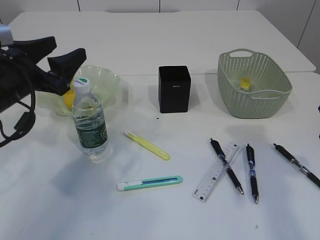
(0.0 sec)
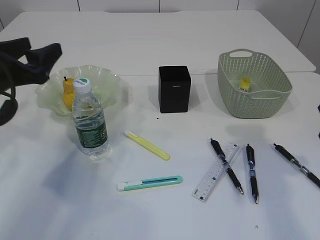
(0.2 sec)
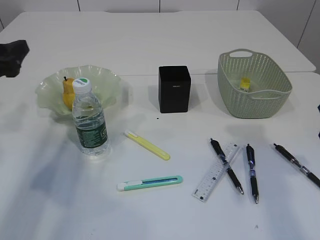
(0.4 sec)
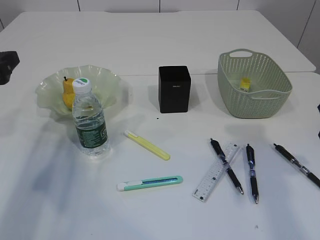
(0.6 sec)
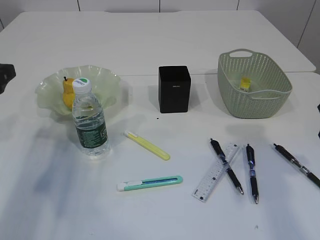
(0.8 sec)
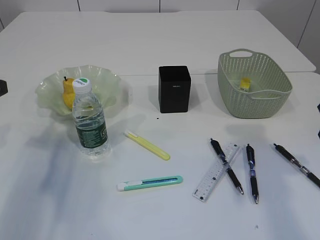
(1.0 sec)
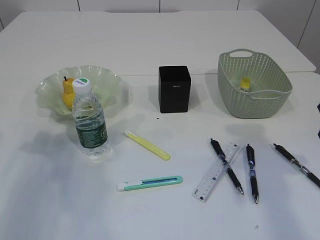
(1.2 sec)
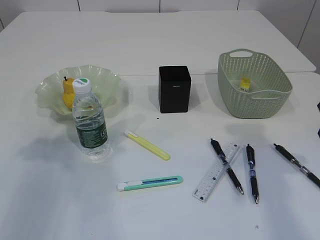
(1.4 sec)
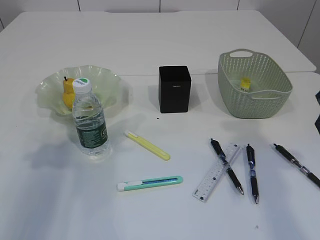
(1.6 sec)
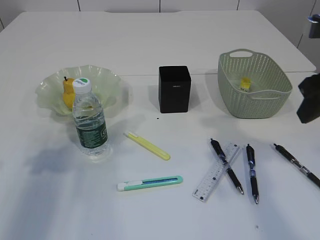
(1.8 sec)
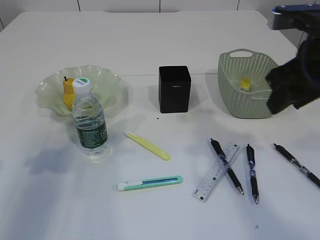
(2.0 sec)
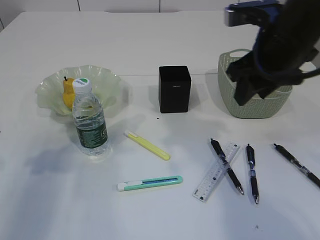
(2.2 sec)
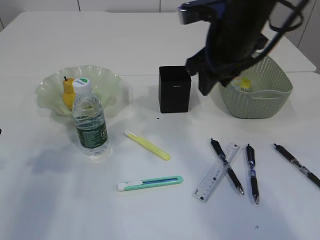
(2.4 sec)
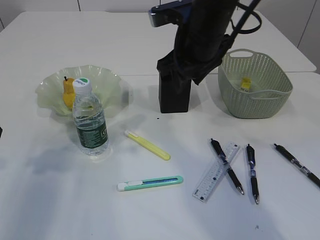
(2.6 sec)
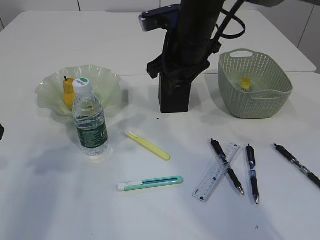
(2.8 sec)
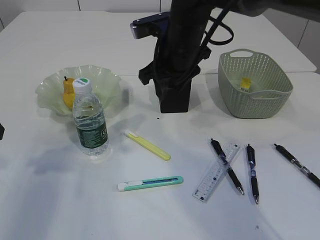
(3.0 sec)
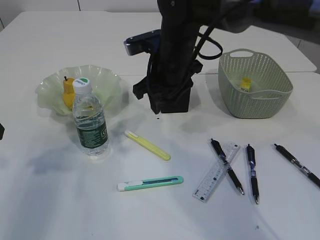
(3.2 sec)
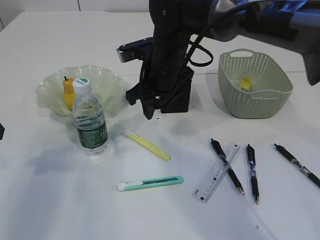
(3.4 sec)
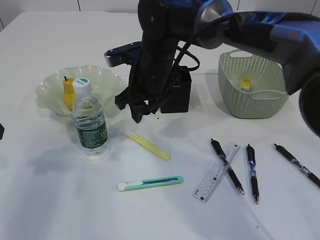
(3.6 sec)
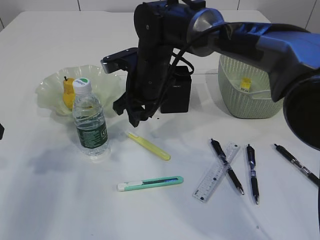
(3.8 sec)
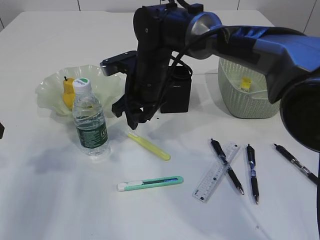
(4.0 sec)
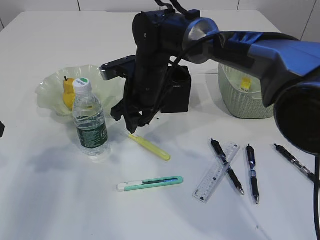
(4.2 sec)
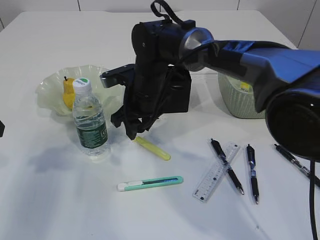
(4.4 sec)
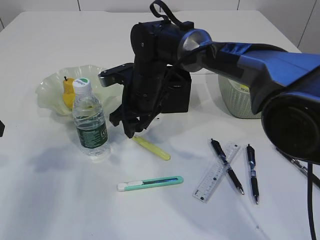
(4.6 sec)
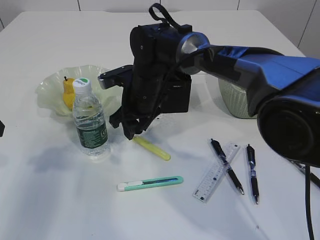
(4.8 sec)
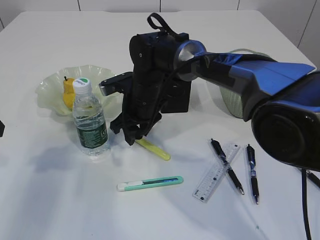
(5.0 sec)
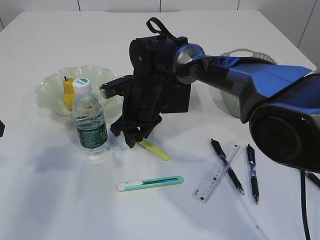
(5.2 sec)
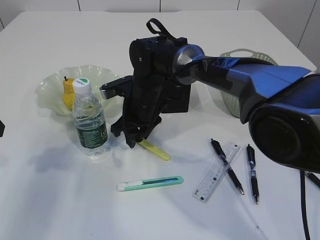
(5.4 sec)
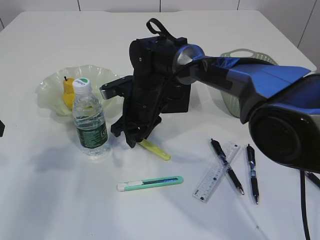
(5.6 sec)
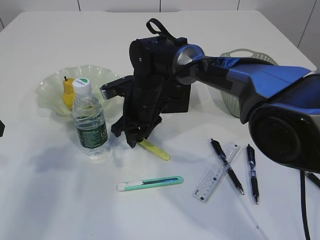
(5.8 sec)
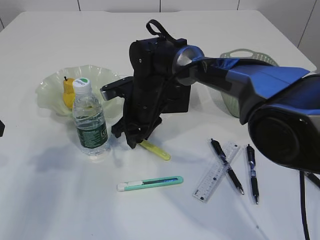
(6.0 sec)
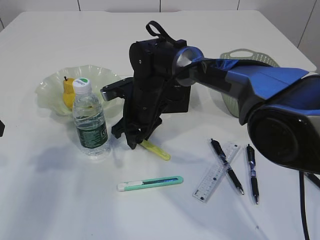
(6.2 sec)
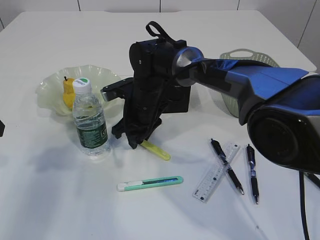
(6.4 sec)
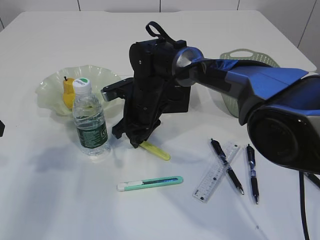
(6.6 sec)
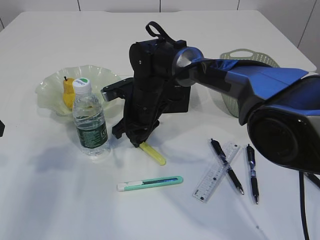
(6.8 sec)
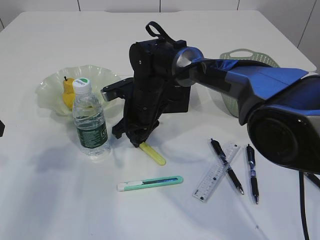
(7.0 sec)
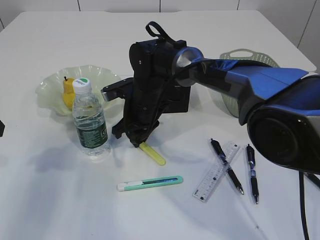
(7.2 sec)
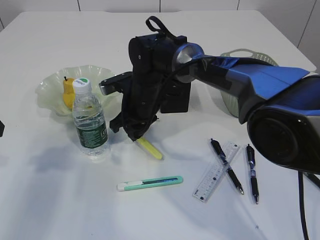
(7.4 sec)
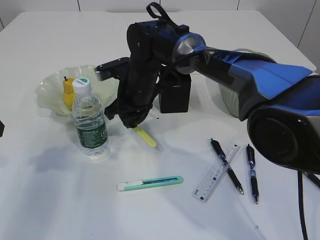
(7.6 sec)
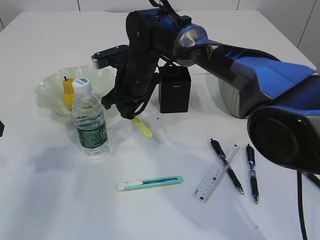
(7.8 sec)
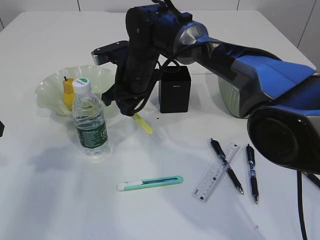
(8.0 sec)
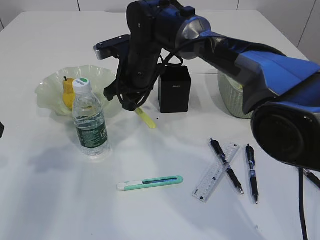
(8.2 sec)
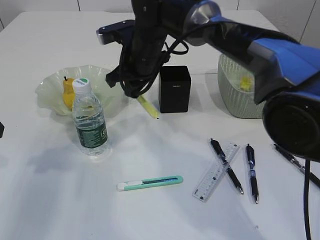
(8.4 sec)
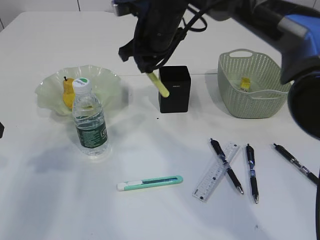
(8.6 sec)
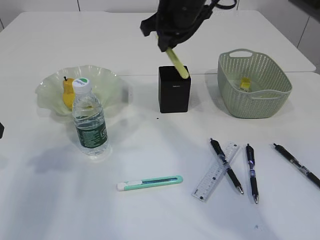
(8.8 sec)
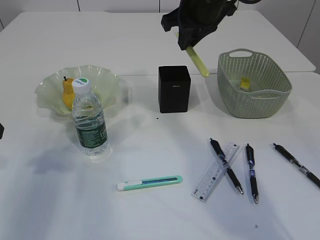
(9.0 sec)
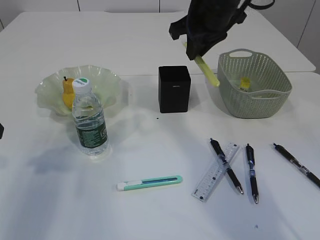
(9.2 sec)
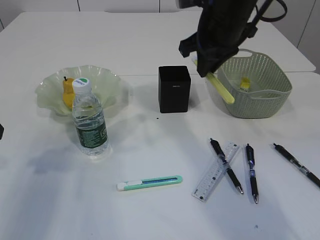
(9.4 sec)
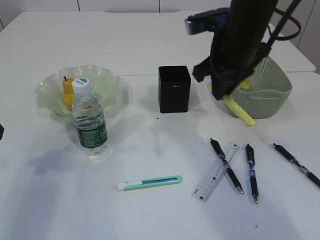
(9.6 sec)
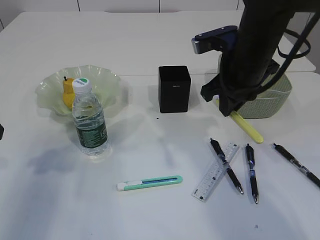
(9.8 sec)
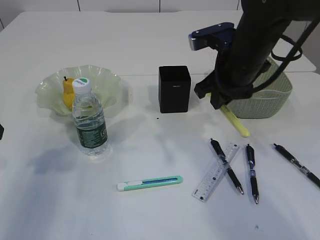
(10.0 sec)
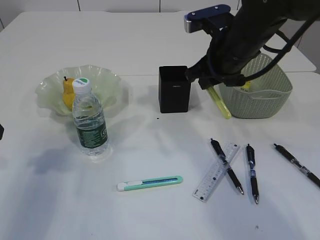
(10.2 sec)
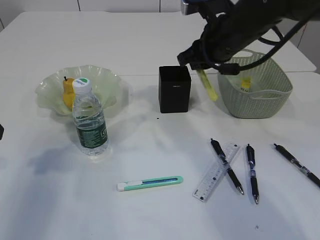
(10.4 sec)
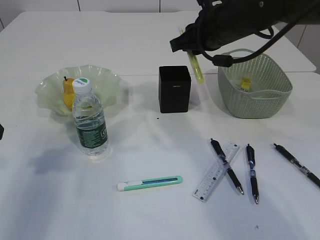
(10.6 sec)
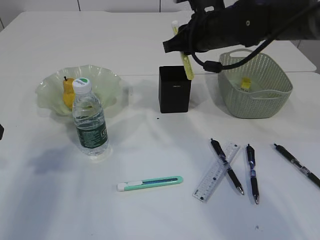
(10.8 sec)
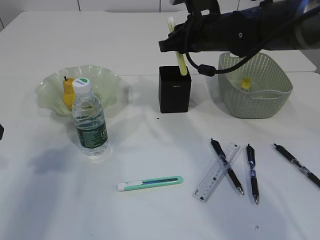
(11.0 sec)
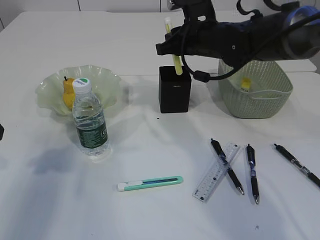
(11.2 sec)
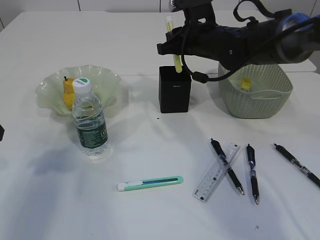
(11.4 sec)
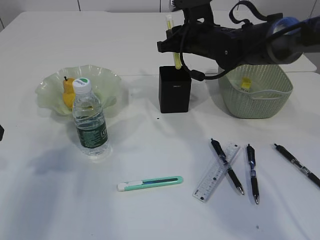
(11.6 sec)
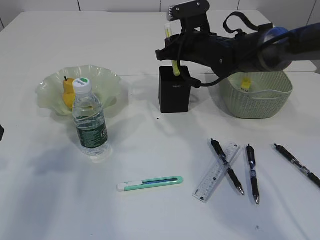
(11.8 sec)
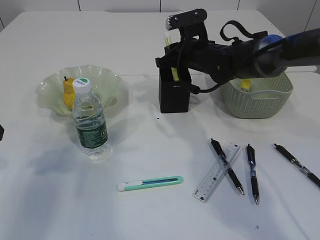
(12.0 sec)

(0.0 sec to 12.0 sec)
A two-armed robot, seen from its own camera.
Step, 0.0 sec - 7.6 sec: pick up the yellow knife.
0.0 sec - 1.6 sec: The left gripper is displaced to the left by about 10 cm.
1.6 sec - 3.0 sec: The right gripper heads to the left and forward, covering about 25 cm.
3.0 sec - 4.4 sec: The right gripper is displaced downward and to the left by roughly 10 cm.
4.4 sec - 6.0 sec: There are only small adjustments of the grippers.
6.0 sec - 7.6 sec: The right gripper closes up.
7.6 sec - 9.0 sec: The right gripper heads upward and to the right, covering about 20 cm.
10.4 sec - 12.0 sec: The right gripper goes about 15 cm downward and forward.

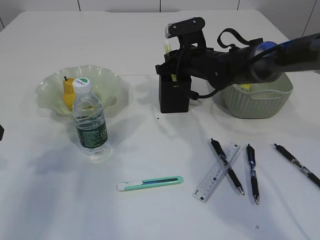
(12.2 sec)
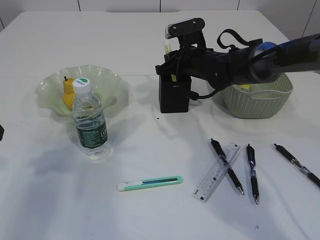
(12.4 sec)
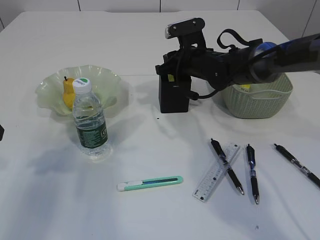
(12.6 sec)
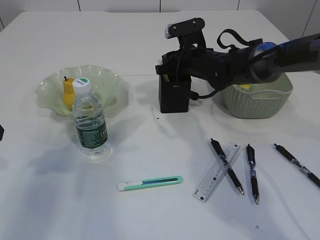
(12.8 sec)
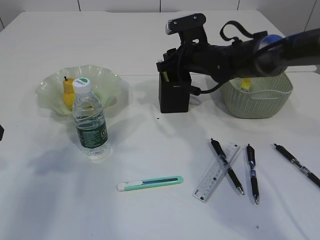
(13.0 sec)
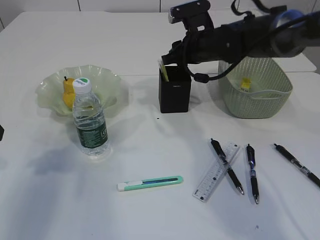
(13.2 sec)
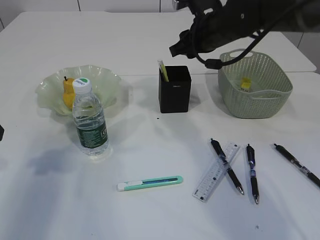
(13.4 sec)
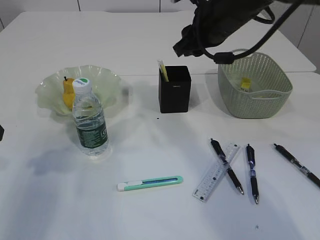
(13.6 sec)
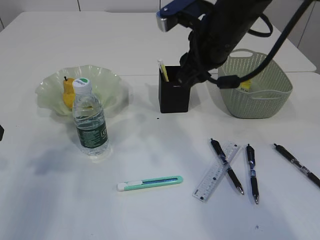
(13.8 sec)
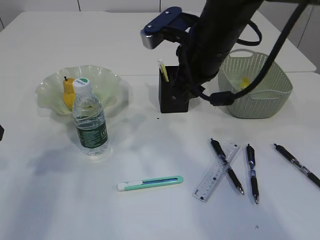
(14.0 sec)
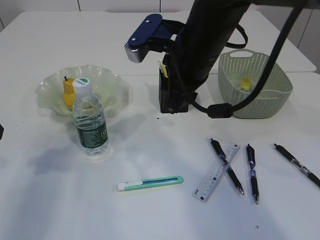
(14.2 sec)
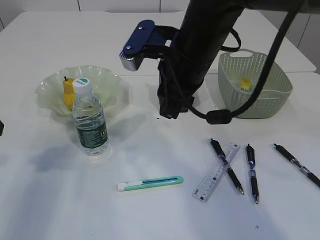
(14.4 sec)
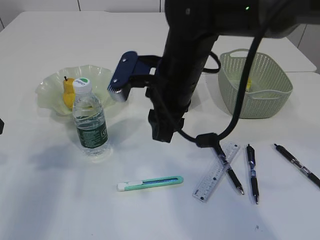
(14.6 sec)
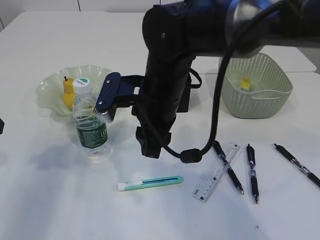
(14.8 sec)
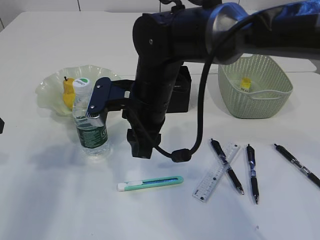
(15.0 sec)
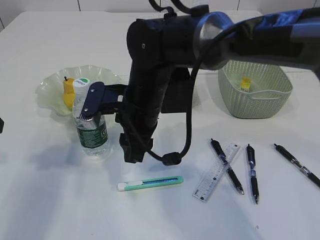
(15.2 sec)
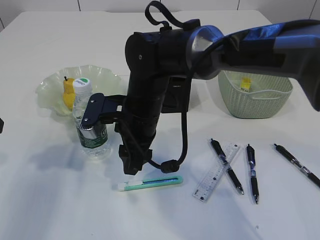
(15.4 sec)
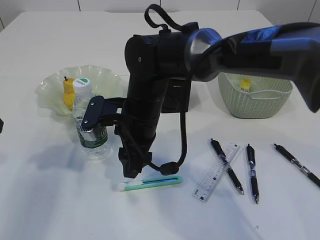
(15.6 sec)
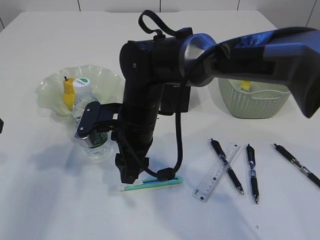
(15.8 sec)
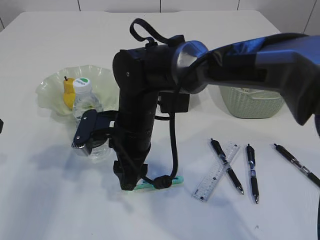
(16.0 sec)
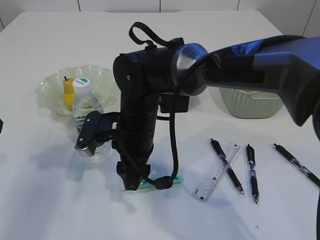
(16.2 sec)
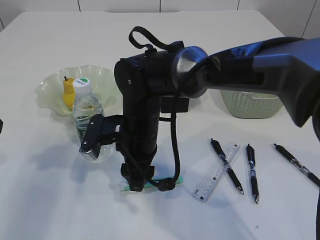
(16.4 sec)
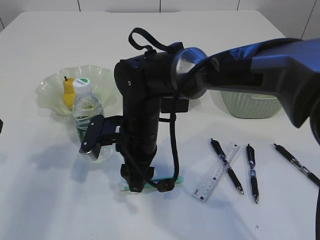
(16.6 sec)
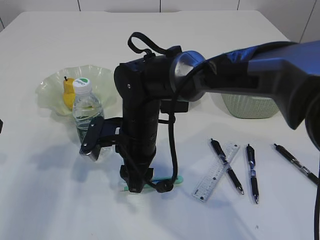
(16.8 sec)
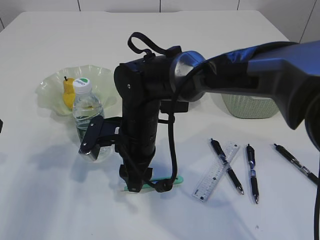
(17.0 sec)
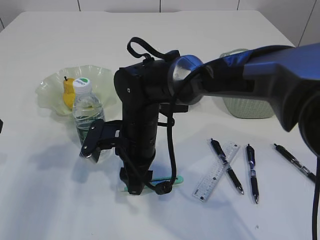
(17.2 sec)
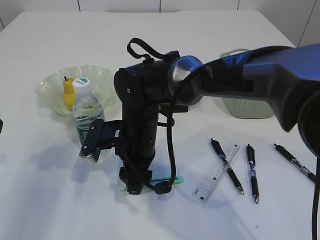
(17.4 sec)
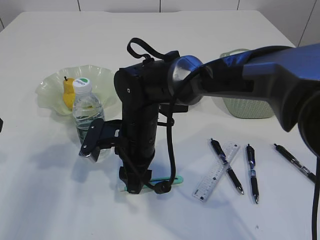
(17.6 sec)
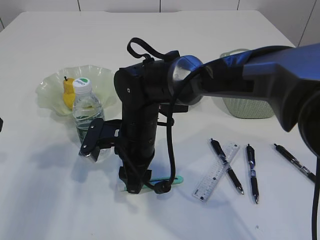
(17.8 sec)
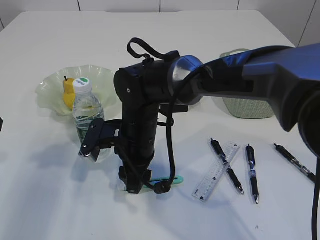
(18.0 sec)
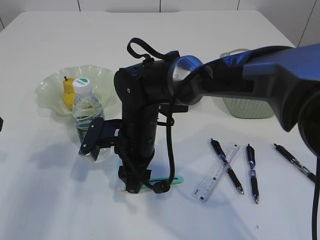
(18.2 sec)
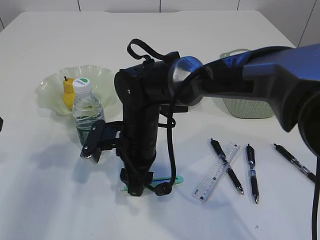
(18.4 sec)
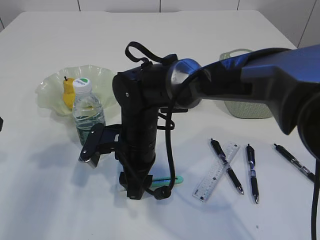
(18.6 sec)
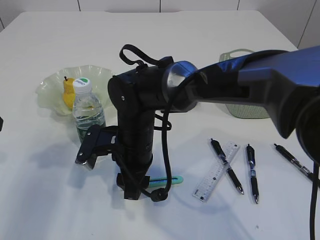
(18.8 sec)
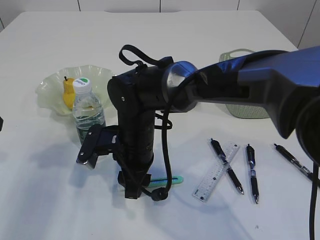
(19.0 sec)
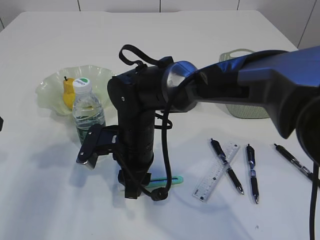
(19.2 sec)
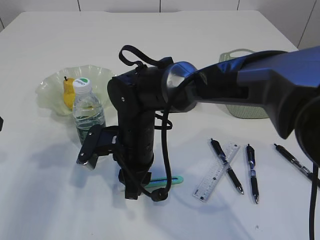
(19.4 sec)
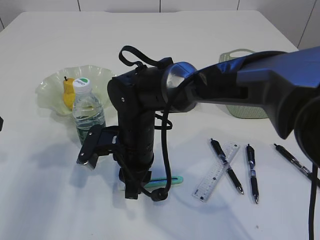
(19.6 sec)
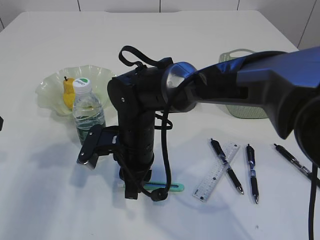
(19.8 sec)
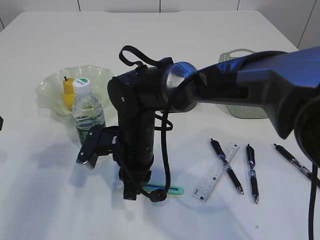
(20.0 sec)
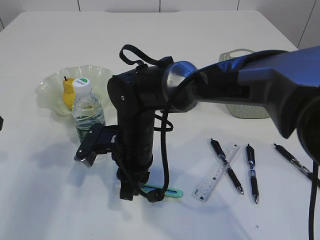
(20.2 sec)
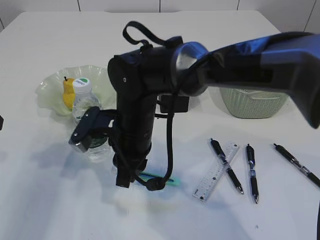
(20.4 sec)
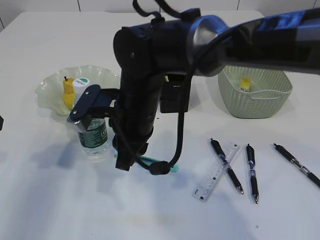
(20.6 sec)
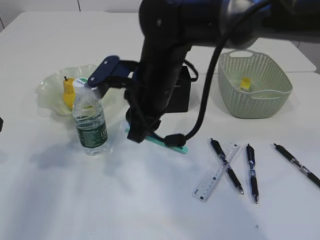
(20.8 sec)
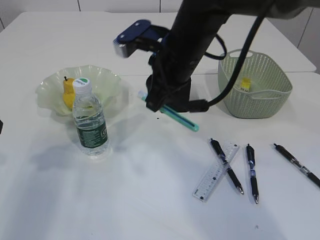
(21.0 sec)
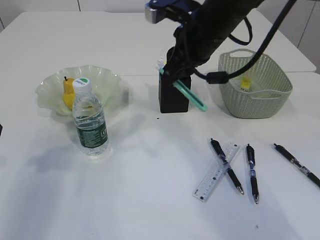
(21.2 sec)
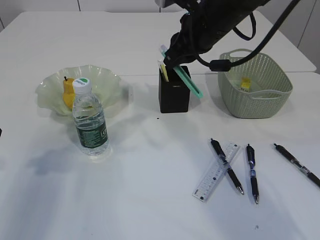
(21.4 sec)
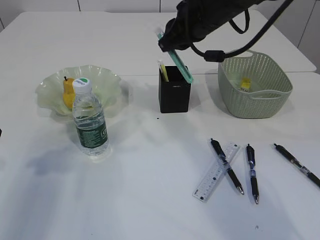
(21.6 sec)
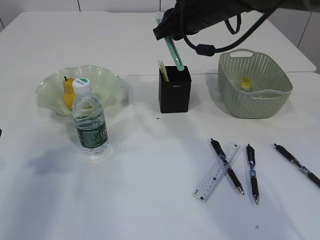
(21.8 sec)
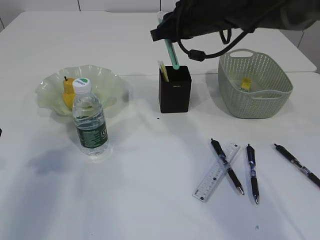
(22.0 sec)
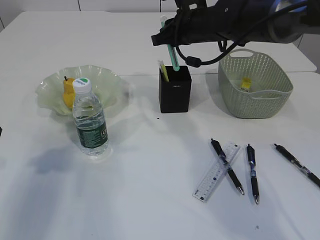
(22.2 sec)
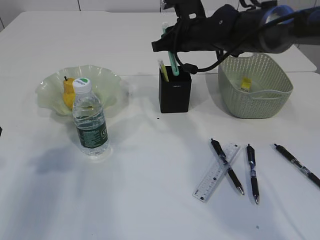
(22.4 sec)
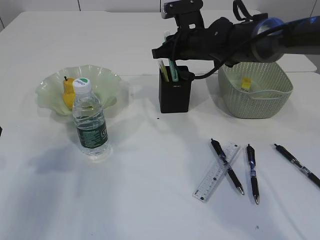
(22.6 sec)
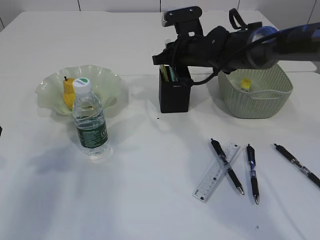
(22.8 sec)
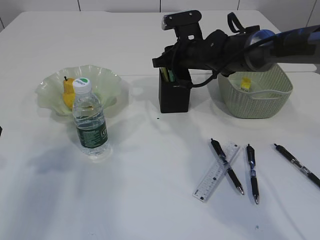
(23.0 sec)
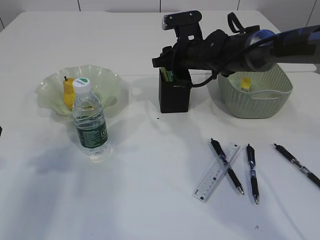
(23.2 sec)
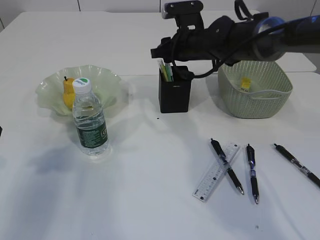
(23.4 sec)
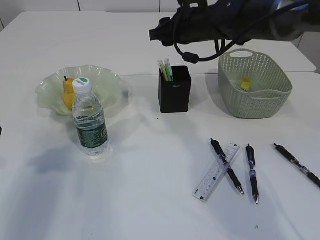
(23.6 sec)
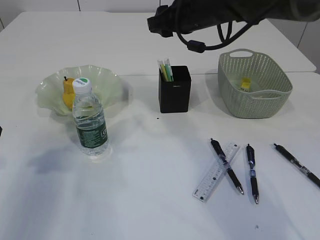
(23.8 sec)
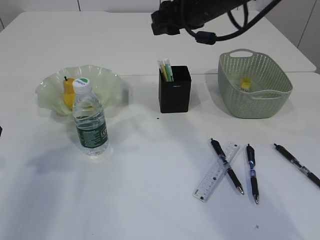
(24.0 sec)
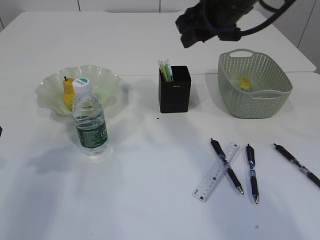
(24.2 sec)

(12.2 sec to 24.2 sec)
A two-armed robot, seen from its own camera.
Step, 13.4 sec - 20.4 sec: pick up the blue knife.
Step, 20.6 sec - 23.4 sec: Place the blue knife into the pen holder.
12.2 sec - 13.8 sec: The right gripper goes roughly 15 cm backward and upward.
13.8 sec - 15.2 sec: The right gripper heads to the left and downward, covering about 15 cm.
16.6 sec - 18.2 sec: Both grippers stay put.
18.2 sec - 19.8 sec: The right gripper closes its fingers.
19.8 sec - 21.2 sec: The right gripper is displaced upward, to the right and forward by about 20 cm.
21.2 sec - 22.6 sec: The right gripper moves forward and downward, approximately 15 cm.
22.6 sec - 24.2 sec: The right gripper shifts some 15 cm upward and backward, and opens its fingers.
